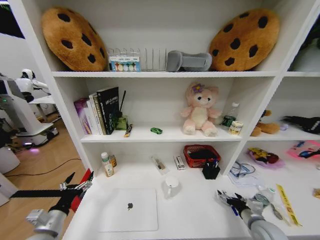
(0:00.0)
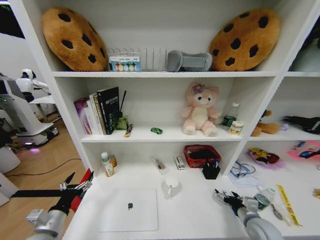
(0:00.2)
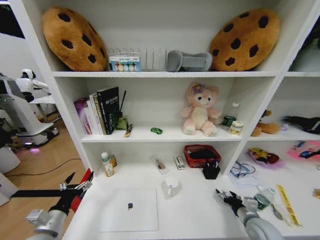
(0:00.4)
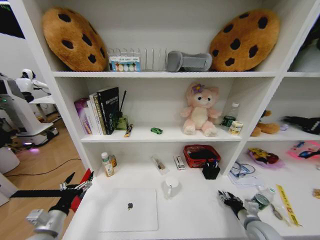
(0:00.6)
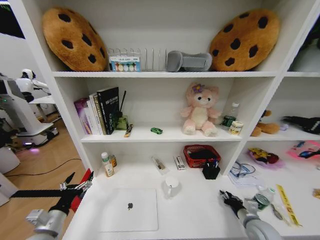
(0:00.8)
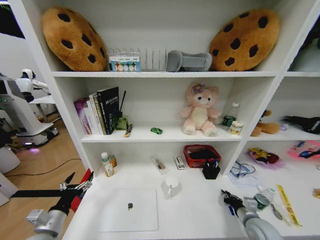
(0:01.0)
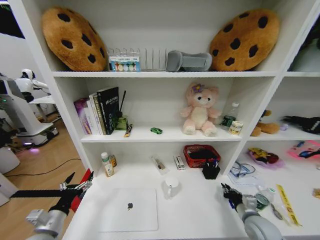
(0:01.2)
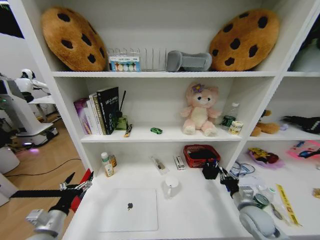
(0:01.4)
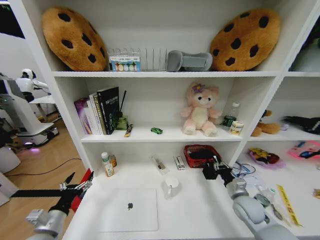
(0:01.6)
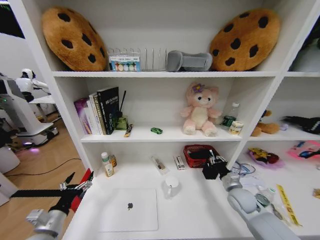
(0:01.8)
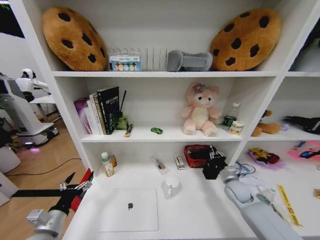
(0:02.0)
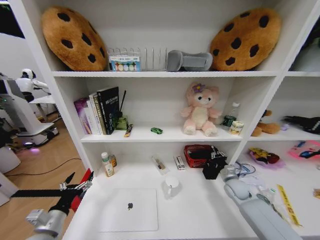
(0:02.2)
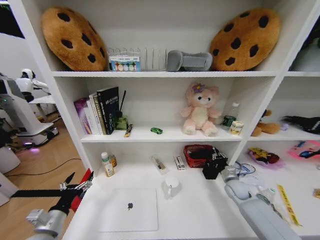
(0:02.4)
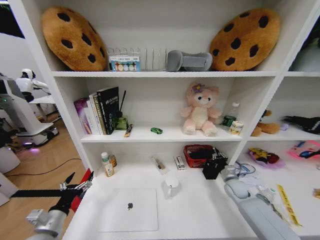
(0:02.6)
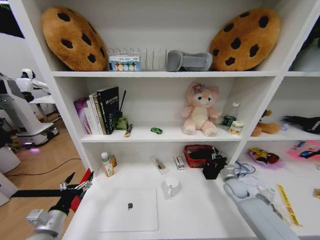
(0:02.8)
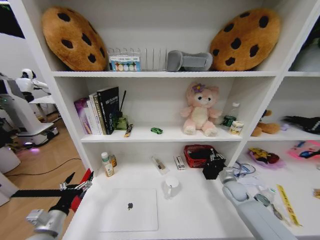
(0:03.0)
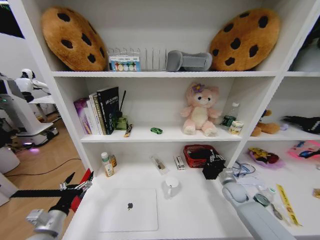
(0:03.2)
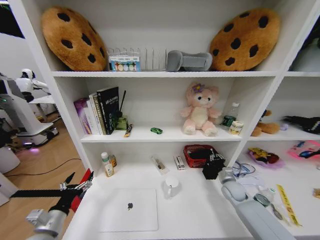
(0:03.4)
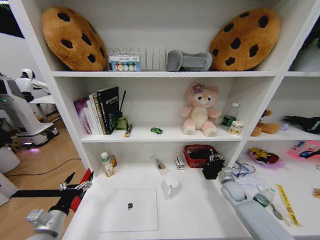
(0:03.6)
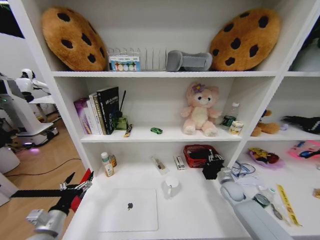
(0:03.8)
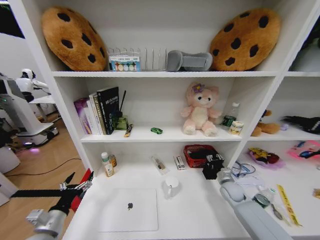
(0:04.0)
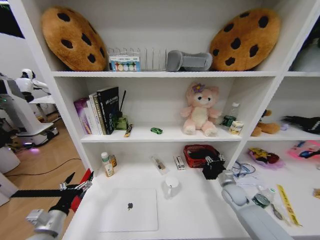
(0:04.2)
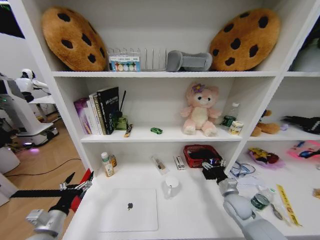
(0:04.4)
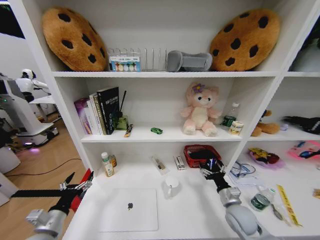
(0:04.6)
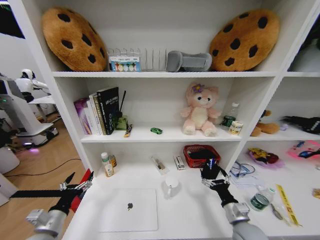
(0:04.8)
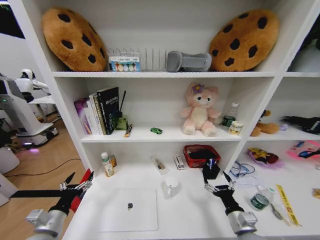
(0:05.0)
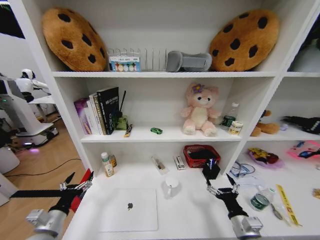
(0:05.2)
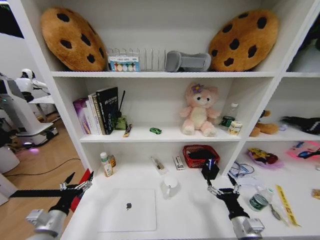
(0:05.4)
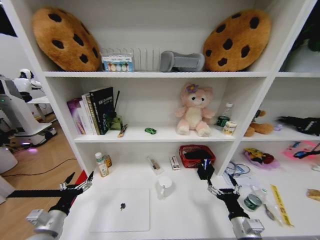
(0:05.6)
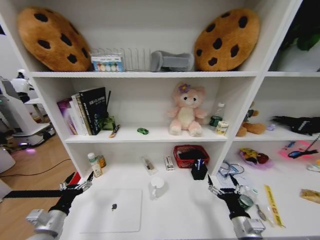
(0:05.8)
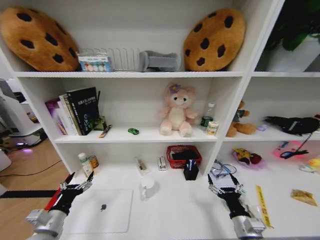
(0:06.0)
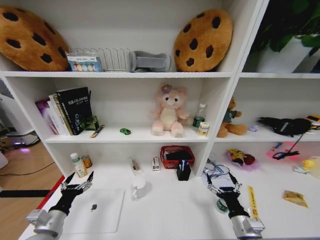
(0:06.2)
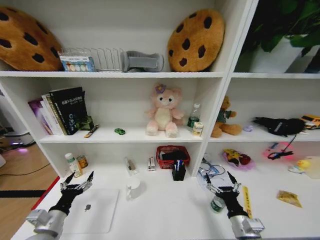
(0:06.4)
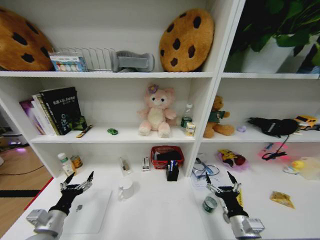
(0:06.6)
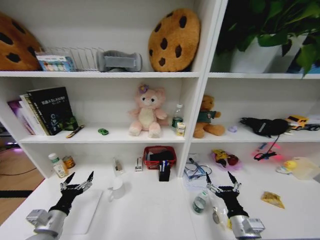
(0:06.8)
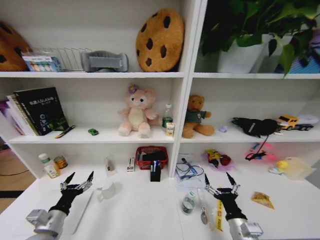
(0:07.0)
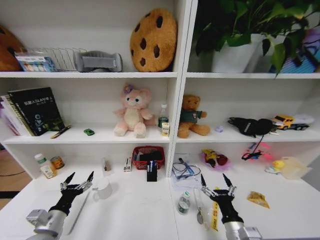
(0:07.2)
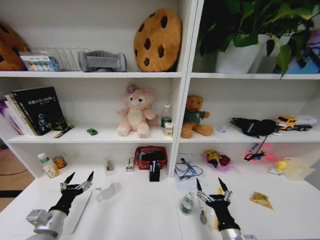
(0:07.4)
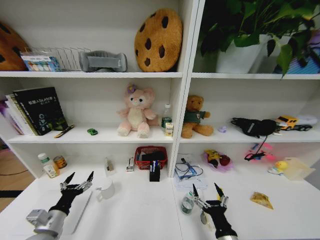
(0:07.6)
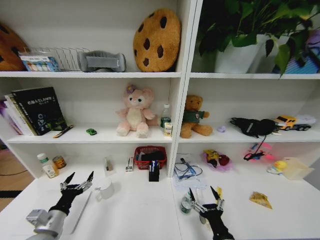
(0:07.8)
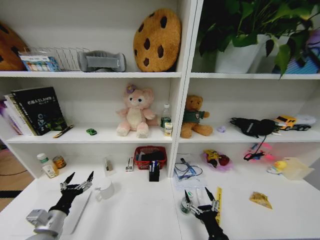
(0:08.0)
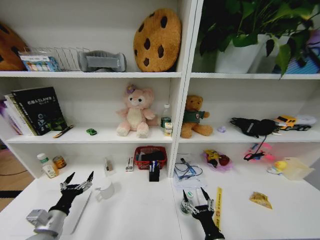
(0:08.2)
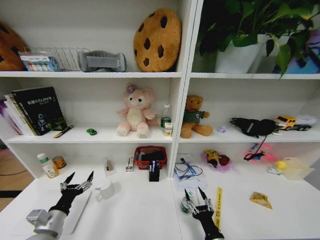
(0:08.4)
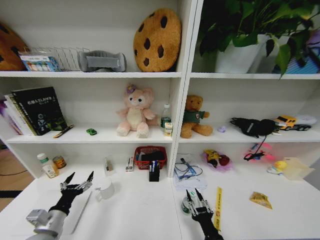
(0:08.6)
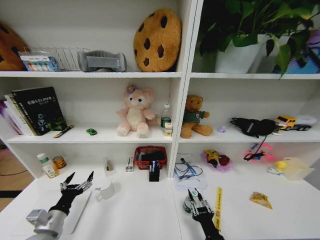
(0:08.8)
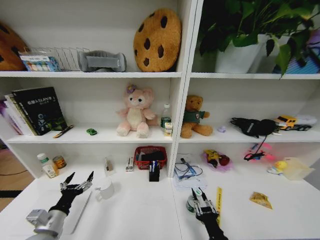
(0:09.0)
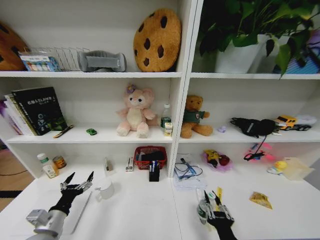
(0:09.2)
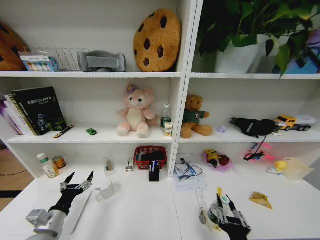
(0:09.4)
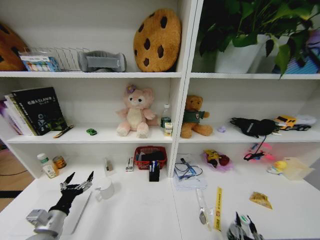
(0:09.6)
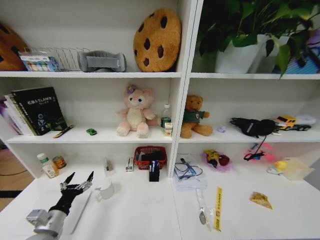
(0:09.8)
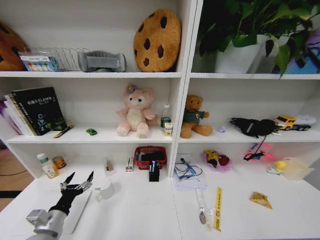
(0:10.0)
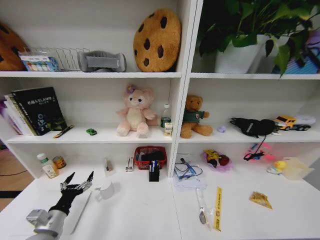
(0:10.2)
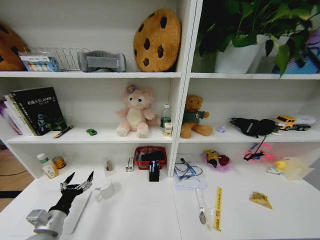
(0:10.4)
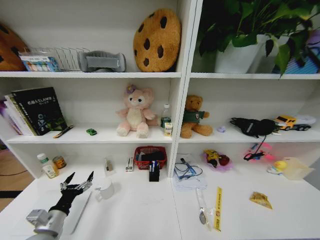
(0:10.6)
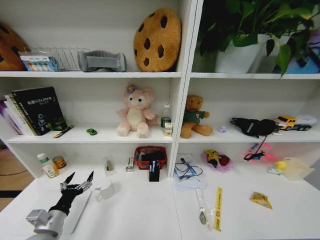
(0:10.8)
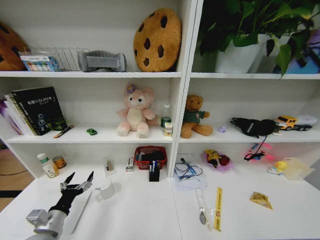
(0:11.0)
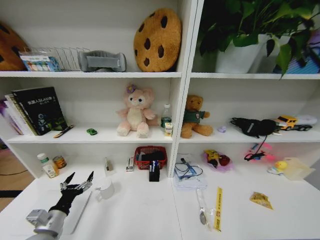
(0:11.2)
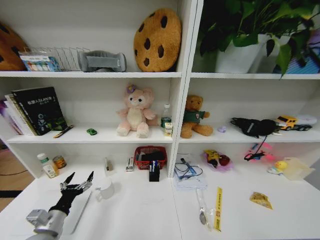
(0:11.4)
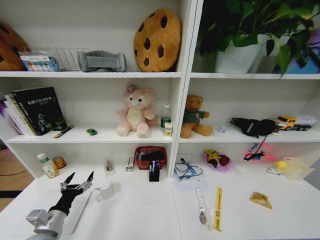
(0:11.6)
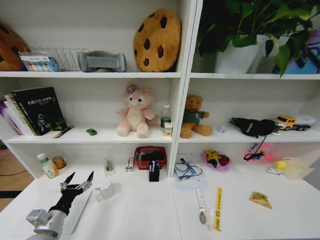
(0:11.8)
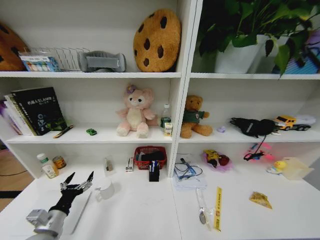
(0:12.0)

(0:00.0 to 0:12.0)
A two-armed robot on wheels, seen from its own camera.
Task of the whole recording: Organize the objects on the table.
0:00.0 - 0:01.6: The right gripper moves forward, some 10 cm, and closes.
0:01.6 - 0:03.0: The right gripper shifts about 10 cm forward.
0:03.0 - 0:04.4: The right gripper travels backward by about 5 cm, and opens up.
0:04.4 - 0:06.0: The right gripper moves backward, approximately 15 cm.
0:06.0 - 0:07.6: The right gripper moves to the left, about 10 cm.
0:07.6 - 0:09.0: The right gripper closes up.
0:09.0 - 0:10.4: The right gripper is displaced backward and downward by roughly 25 cm.

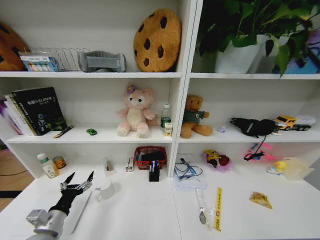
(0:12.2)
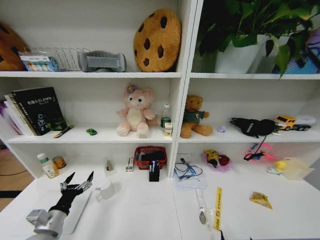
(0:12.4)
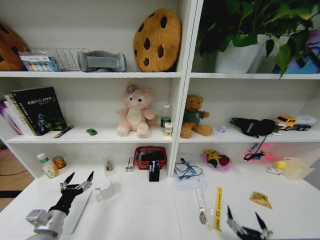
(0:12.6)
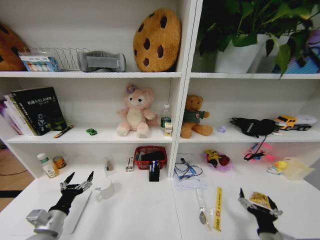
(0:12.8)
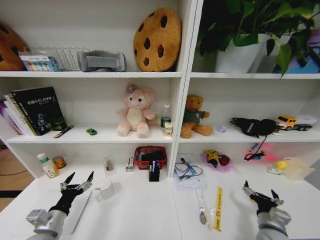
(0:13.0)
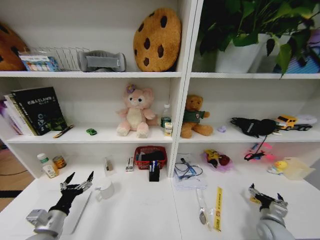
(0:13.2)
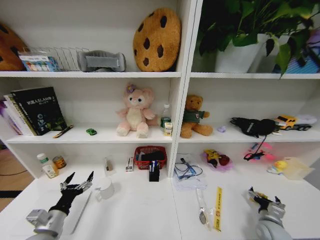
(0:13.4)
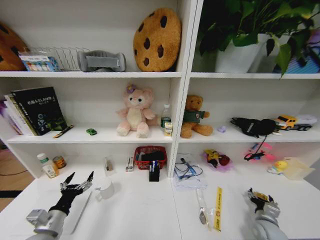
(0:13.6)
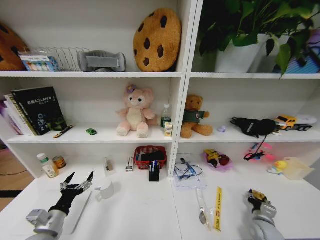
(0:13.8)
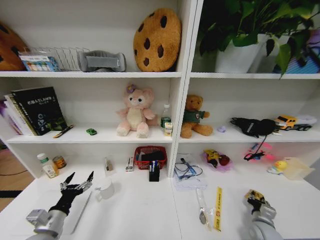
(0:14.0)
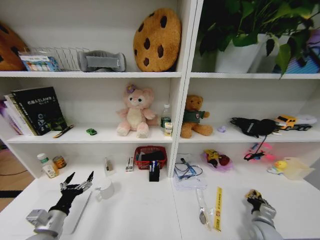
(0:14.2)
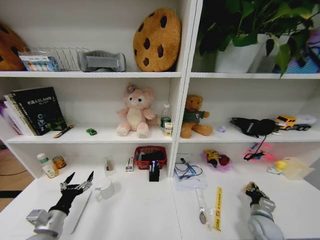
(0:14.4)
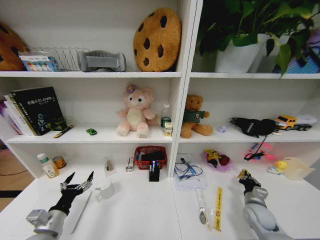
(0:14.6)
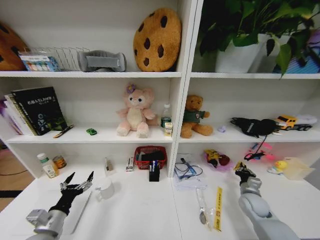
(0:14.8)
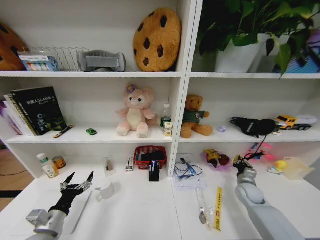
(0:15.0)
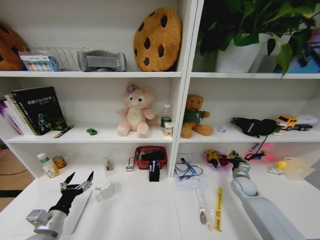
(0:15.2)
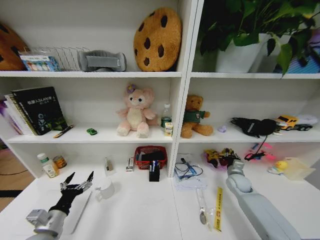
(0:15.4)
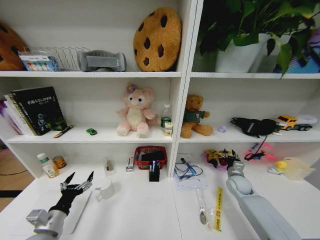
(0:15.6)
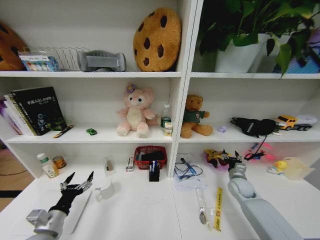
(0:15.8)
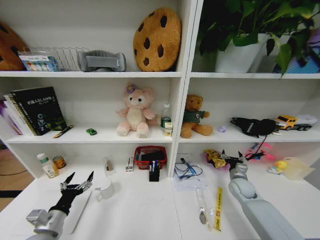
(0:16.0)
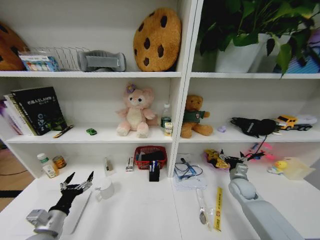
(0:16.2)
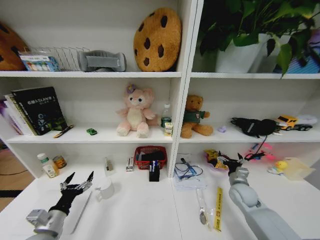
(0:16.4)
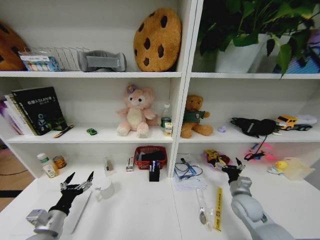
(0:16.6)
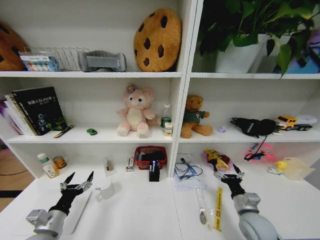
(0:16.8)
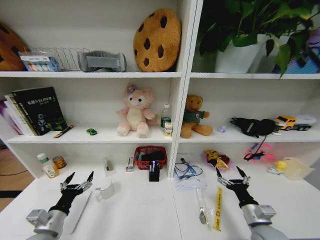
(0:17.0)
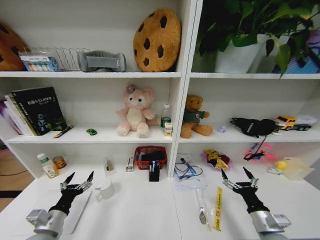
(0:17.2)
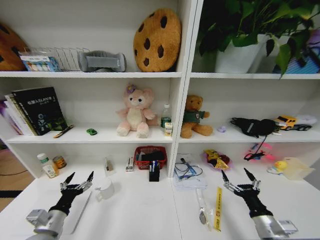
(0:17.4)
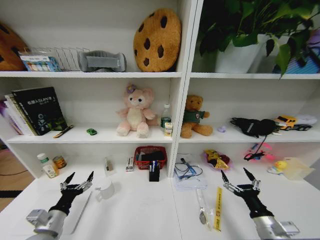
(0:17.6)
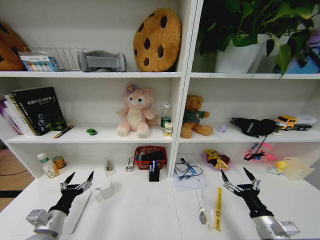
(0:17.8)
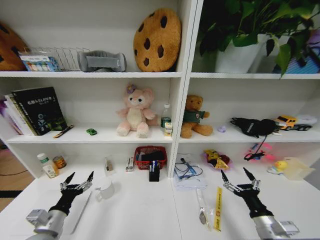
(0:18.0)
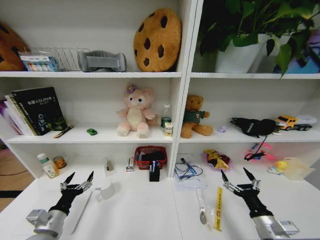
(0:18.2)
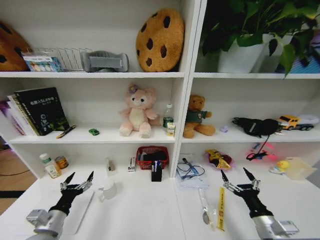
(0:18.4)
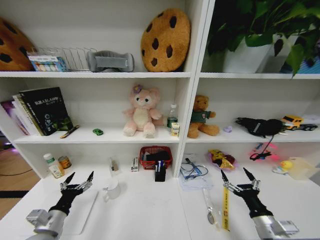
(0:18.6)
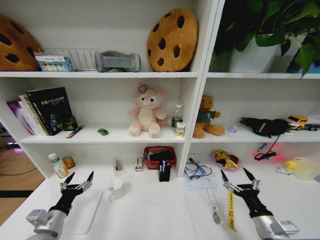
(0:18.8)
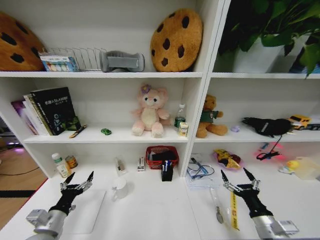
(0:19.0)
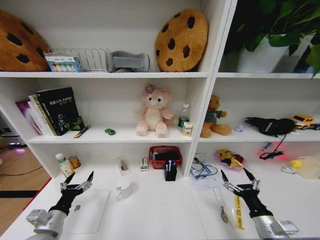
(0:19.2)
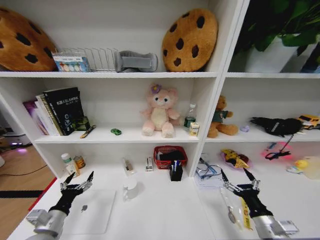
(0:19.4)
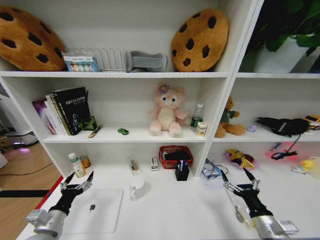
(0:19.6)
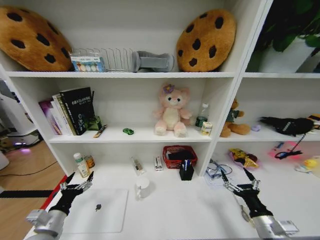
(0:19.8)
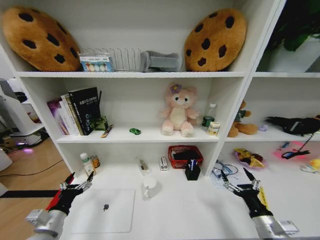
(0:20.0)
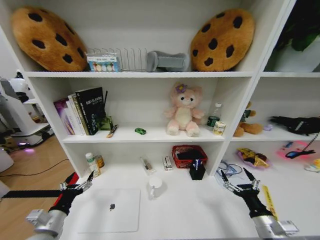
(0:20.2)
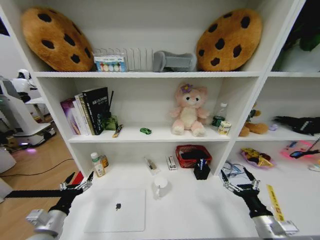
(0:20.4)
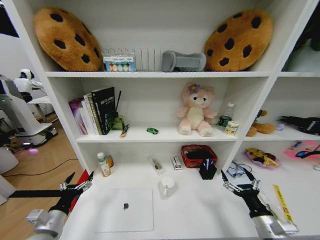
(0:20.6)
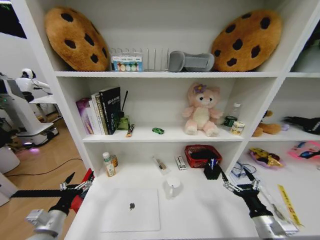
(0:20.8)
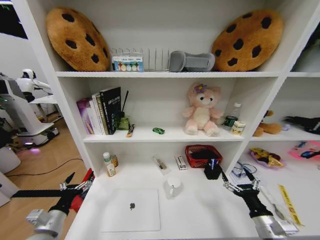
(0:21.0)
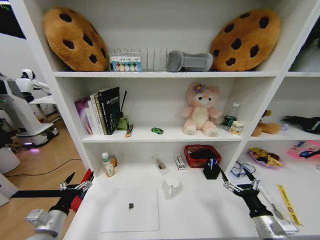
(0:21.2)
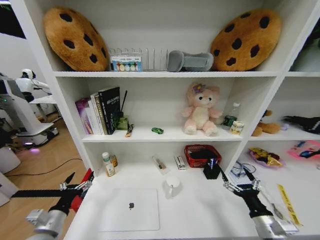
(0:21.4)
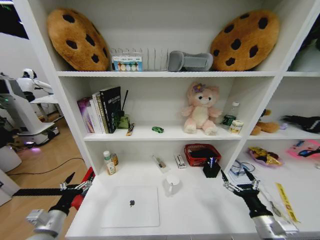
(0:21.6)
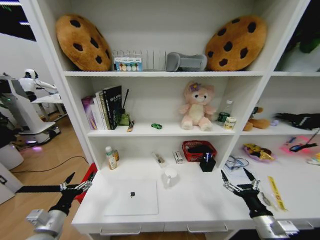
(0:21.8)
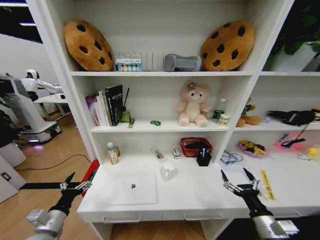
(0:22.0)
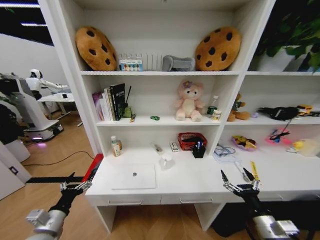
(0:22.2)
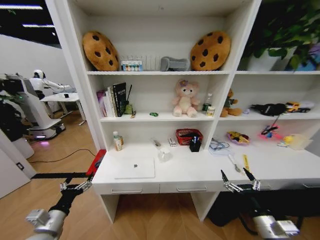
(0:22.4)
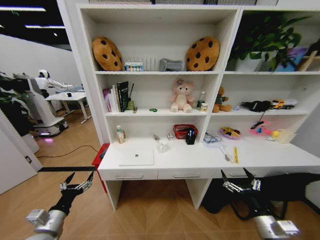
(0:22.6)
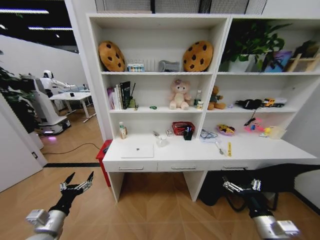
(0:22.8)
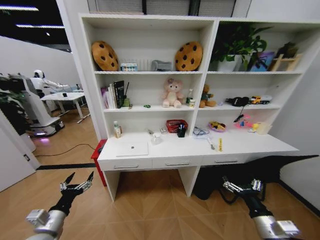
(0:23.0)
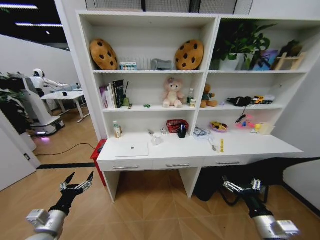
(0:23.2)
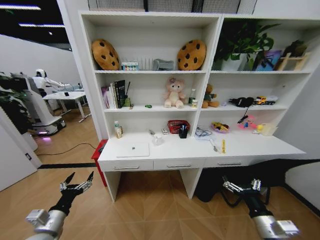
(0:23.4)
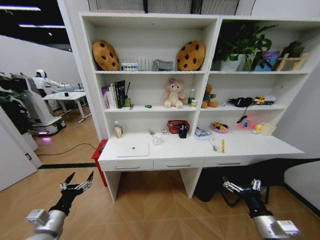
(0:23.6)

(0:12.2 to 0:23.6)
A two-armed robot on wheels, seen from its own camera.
Task of the whole recording: Organize the objects on the table.
0:12.2 - 0:13.6: The right gripper shifts some 40 cm forward and to the right.
0:13.6 - 0:15.0: The right gripper is displaced forward and upward by some 10 cm, and closes up.
0:15.0 - 0:16.4: The right gripper goes forward and returns, roughly 10 cm each way, and opens up.
0:16.4 - 0:17.8: The right gripper is displaced backward by roughly 20 cm.
